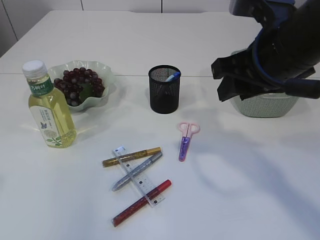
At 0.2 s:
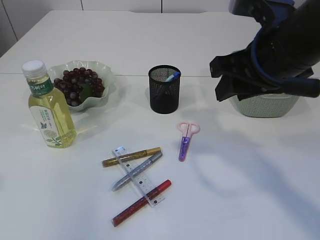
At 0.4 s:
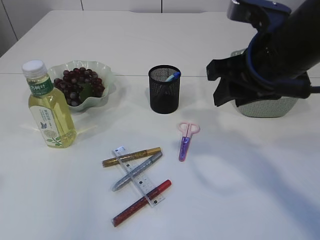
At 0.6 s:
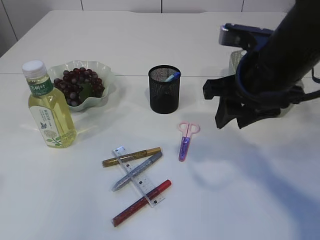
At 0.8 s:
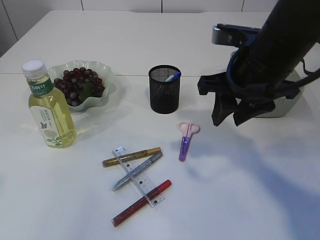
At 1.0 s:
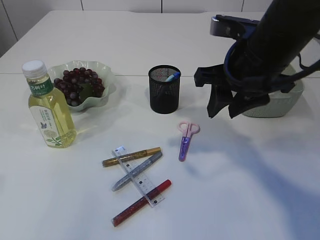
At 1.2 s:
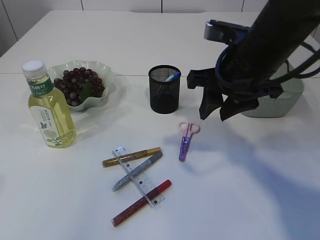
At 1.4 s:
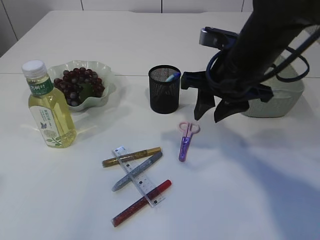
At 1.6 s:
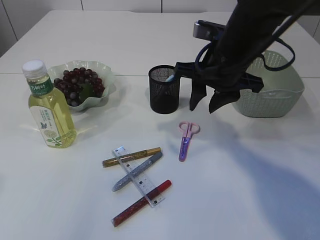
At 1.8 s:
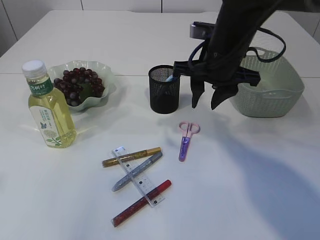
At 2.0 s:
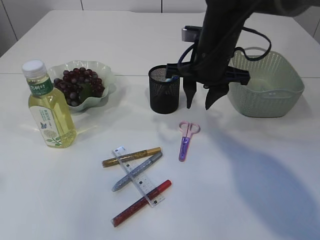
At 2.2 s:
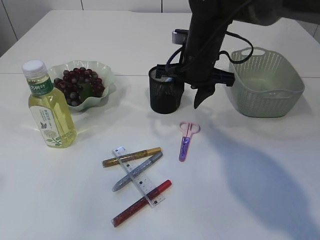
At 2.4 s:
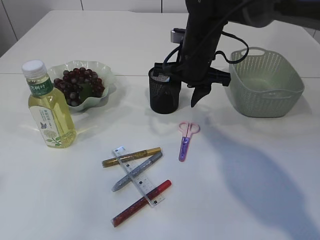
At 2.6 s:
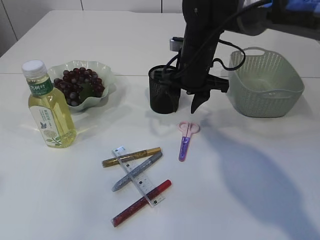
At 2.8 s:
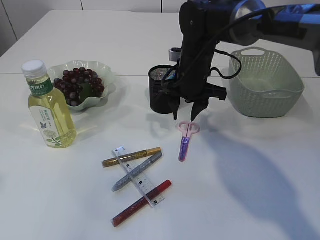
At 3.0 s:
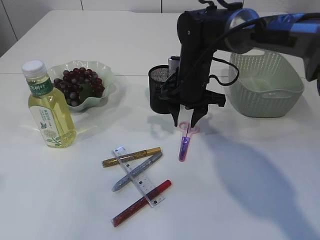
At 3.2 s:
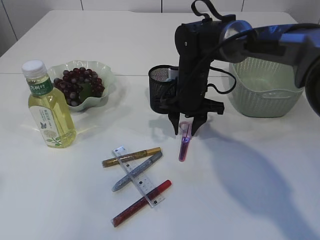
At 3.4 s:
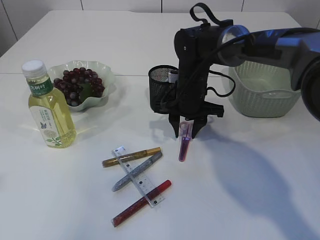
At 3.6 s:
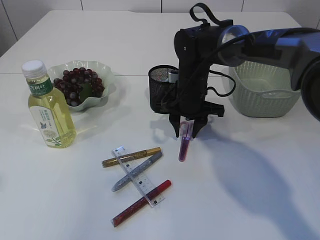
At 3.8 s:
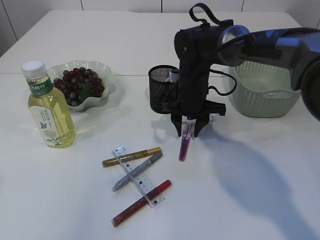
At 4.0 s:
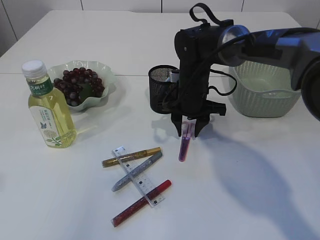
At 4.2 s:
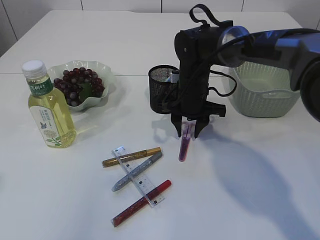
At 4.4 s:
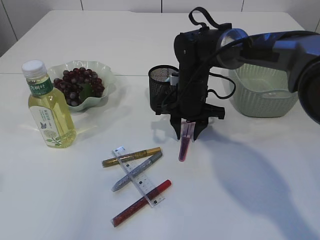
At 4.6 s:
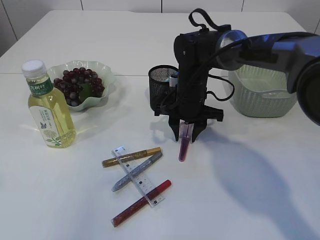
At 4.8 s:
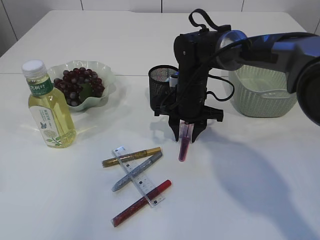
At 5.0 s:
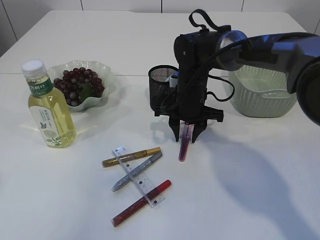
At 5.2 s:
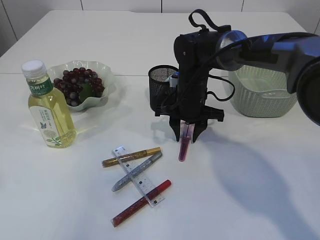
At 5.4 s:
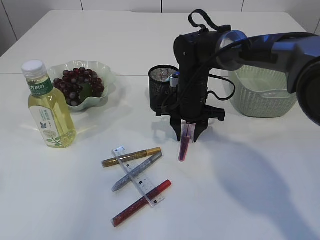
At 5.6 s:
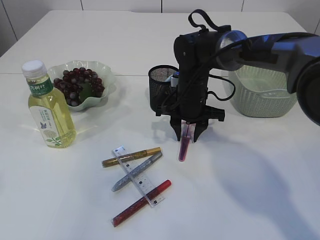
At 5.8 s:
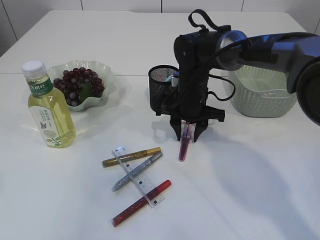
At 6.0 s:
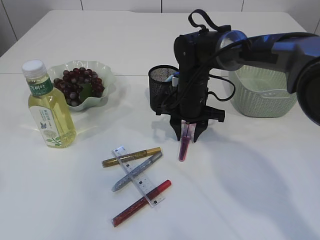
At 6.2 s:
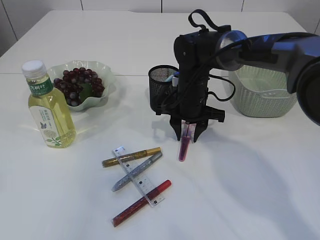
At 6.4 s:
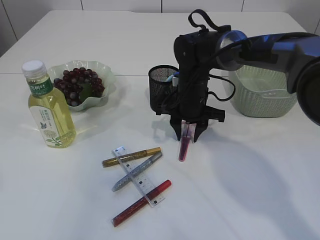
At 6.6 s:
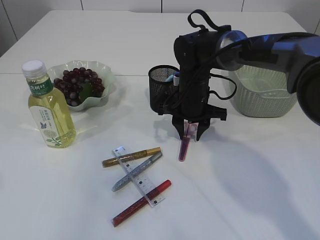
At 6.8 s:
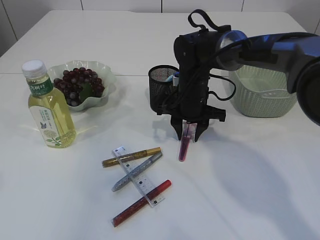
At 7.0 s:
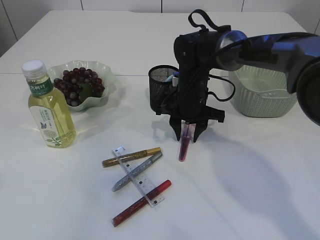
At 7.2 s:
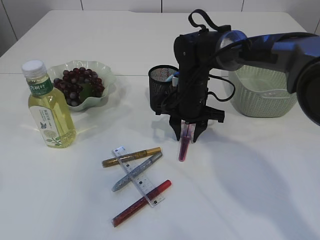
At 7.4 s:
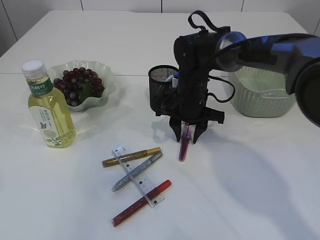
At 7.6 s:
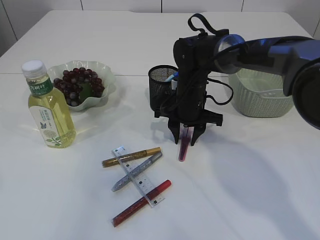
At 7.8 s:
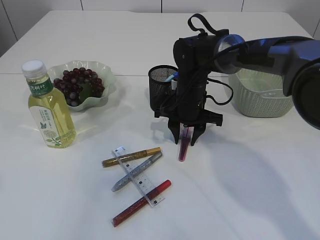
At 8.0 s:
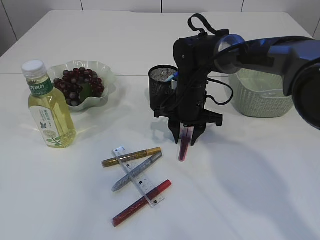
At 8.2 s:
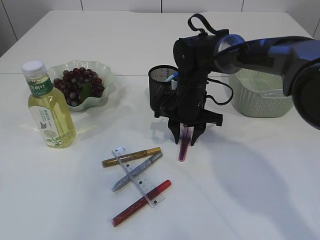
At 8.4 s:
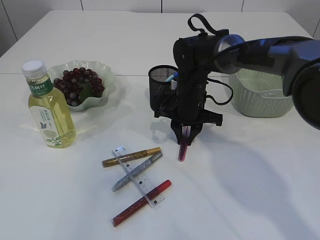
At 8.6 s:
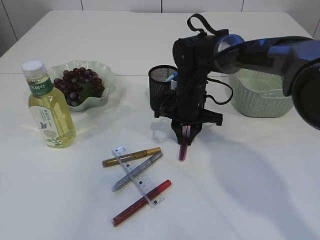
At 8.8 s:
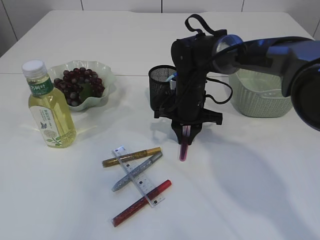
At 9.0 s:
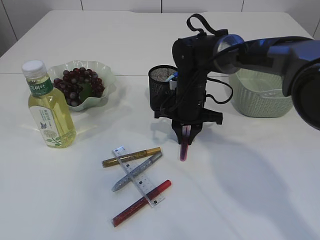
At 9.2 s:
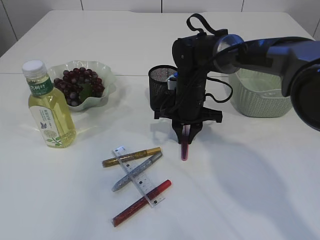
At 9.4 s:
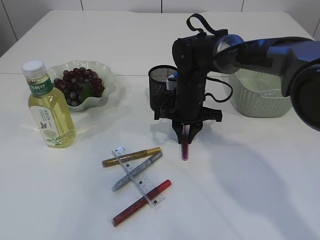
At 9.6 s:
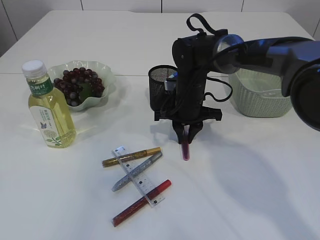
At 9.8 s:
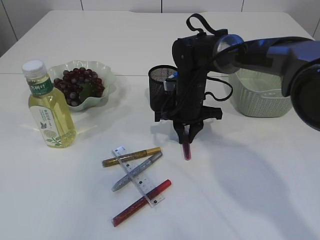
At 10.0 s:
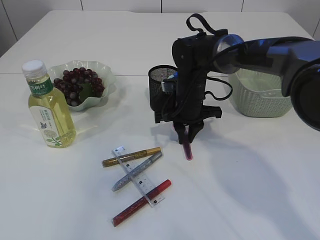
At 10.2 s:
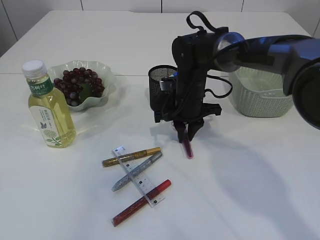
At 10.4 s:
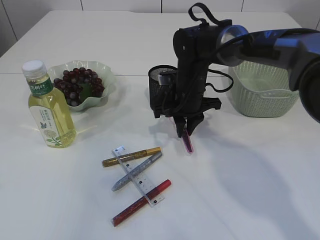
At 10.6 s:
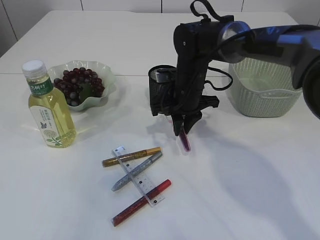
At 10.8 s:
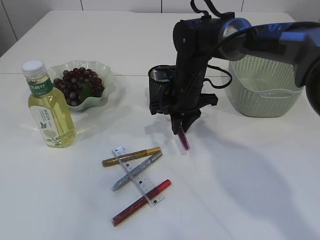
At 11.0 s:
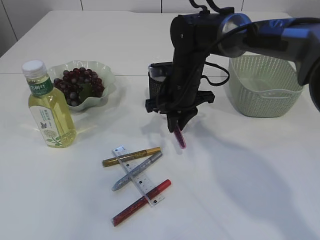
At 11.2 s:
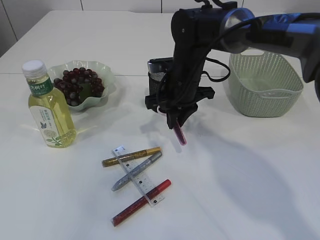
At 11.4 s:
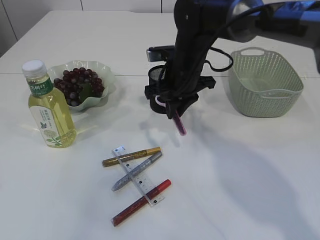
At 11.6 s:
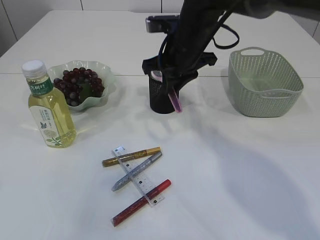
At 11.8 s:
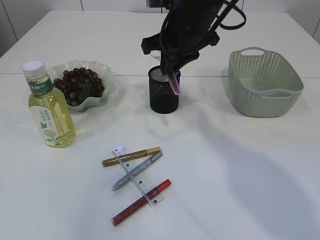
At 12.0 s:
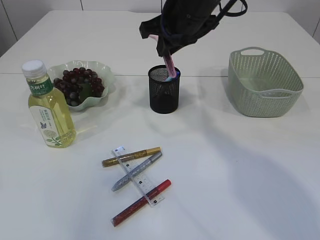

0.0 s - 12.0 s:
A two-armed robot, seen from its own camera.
Step, 0.0 s - 11.4 s: pick up the pink scissors.
0.0 s - 1.6 s: The right gripper is displaced forward by roughly 5 cm.
1.6 s - 3.0 s: The right gripper goes some 10 cm downward and forward.
3.0 s - 4.4 s: The grippers stay close to where they were, moving slightly.
4.4 s - 6.0 s: Neither gripper changes place.
6.0 s - 9.0 s: Both grippers stay about where they are.
10.4 s - 12.0 s: The right gripper shifts roughly 15 cm upward.

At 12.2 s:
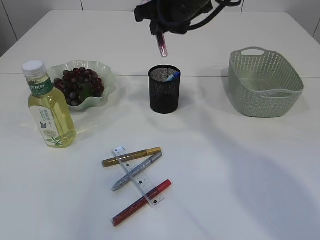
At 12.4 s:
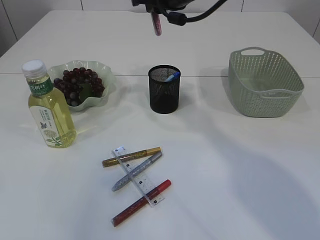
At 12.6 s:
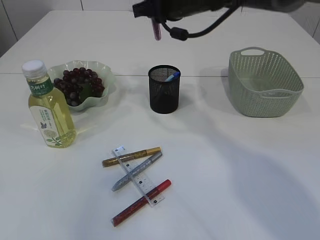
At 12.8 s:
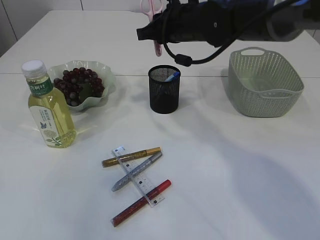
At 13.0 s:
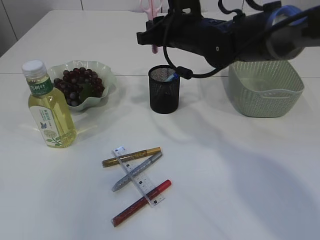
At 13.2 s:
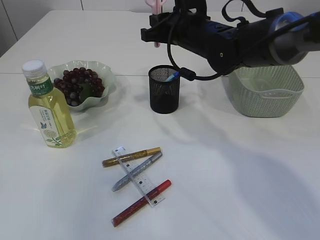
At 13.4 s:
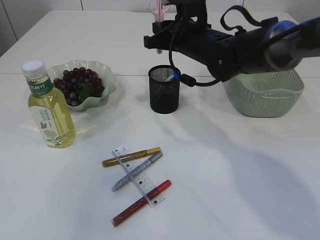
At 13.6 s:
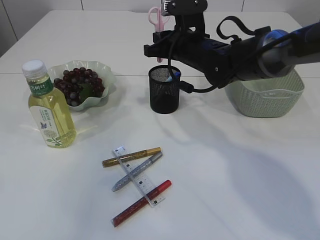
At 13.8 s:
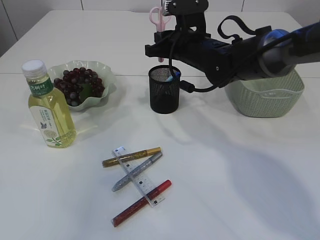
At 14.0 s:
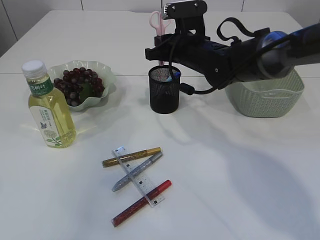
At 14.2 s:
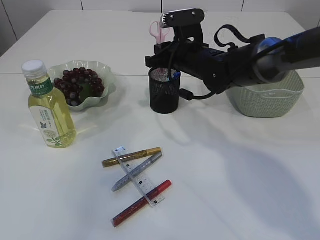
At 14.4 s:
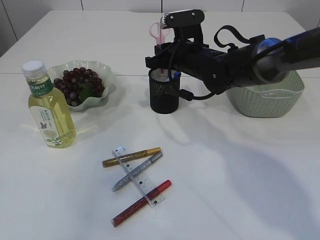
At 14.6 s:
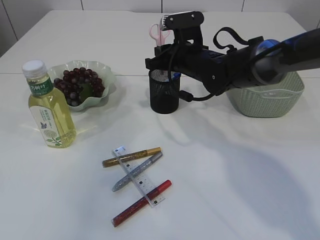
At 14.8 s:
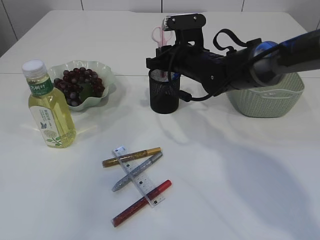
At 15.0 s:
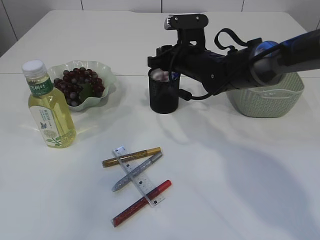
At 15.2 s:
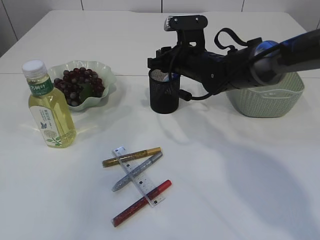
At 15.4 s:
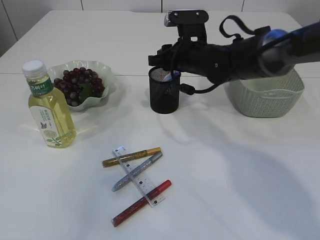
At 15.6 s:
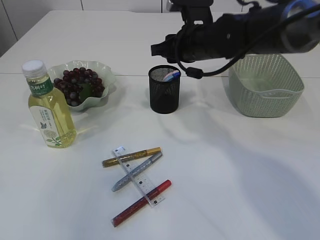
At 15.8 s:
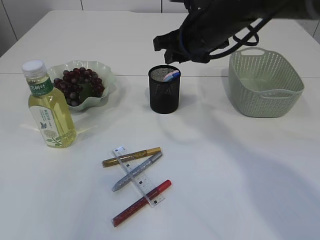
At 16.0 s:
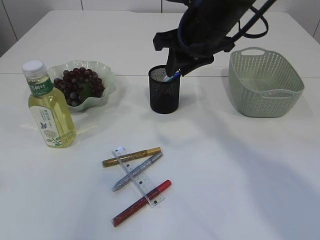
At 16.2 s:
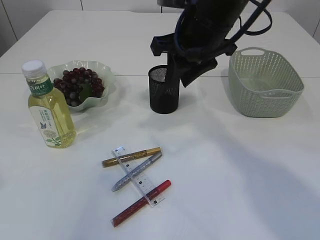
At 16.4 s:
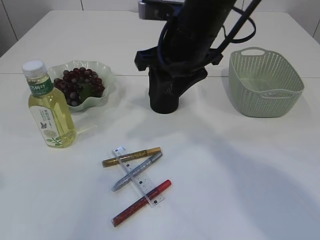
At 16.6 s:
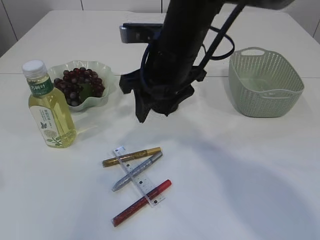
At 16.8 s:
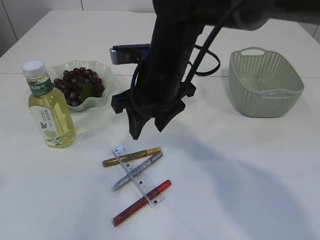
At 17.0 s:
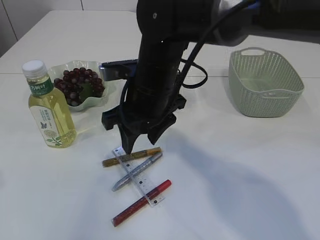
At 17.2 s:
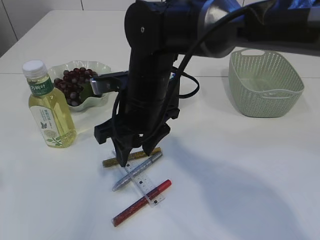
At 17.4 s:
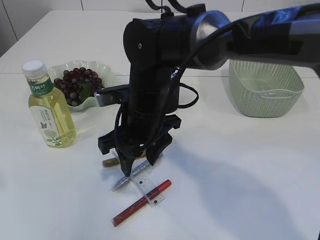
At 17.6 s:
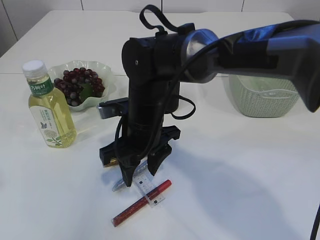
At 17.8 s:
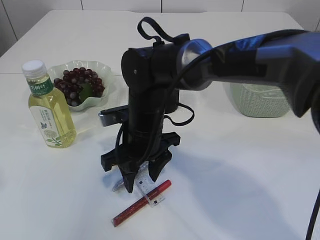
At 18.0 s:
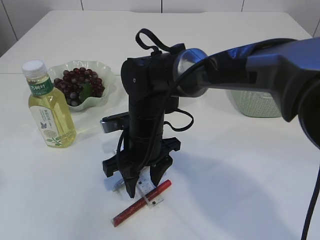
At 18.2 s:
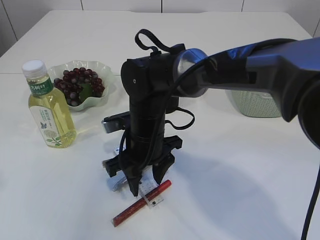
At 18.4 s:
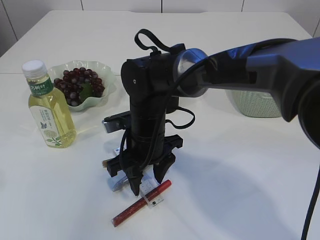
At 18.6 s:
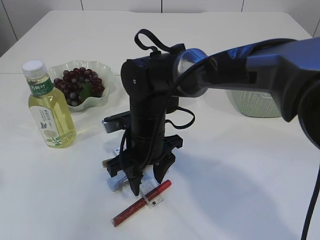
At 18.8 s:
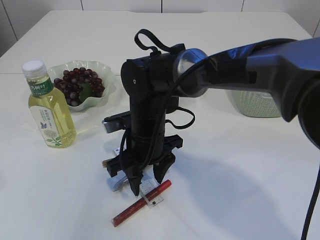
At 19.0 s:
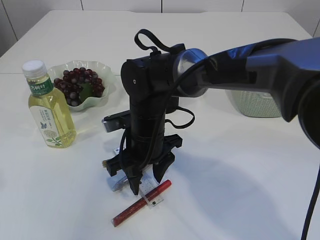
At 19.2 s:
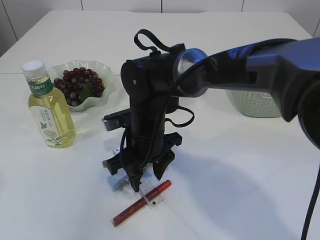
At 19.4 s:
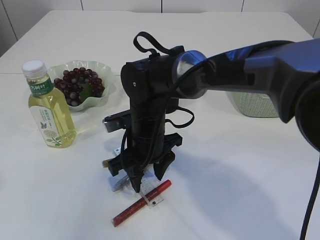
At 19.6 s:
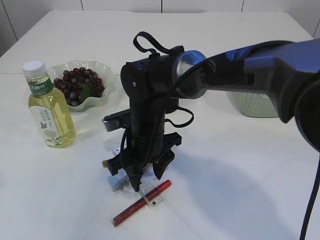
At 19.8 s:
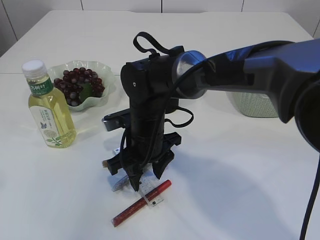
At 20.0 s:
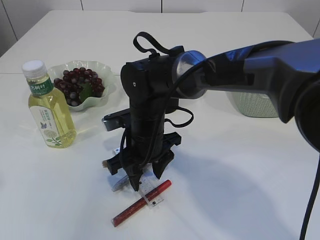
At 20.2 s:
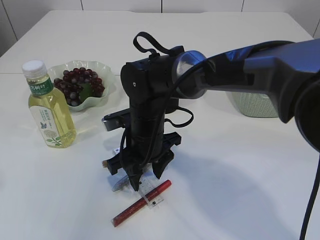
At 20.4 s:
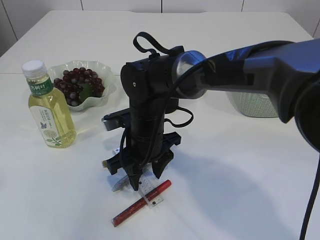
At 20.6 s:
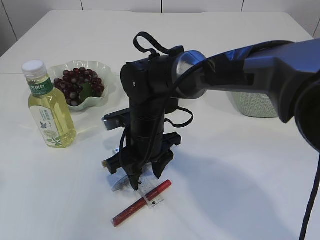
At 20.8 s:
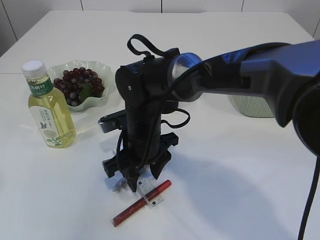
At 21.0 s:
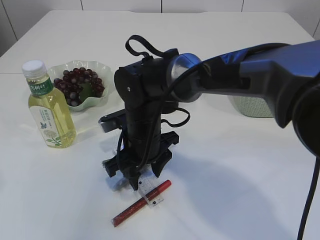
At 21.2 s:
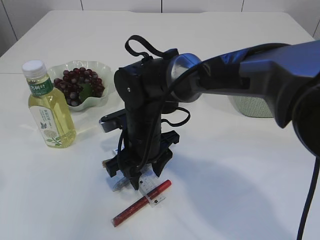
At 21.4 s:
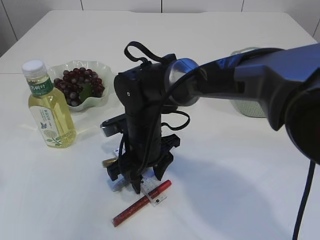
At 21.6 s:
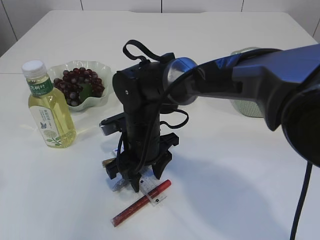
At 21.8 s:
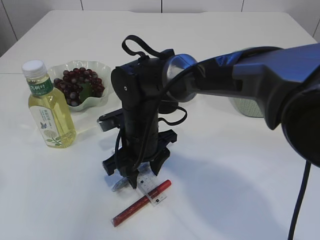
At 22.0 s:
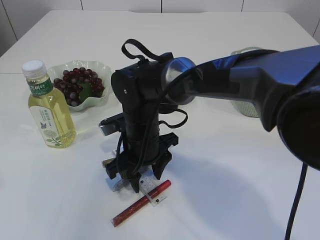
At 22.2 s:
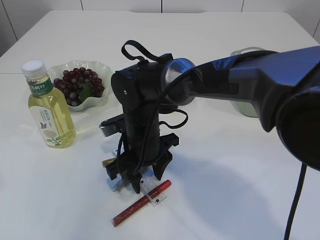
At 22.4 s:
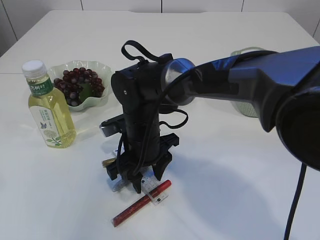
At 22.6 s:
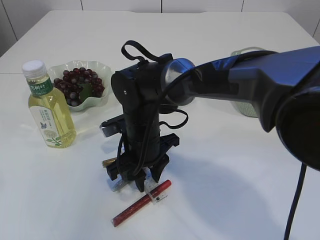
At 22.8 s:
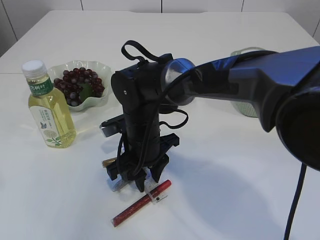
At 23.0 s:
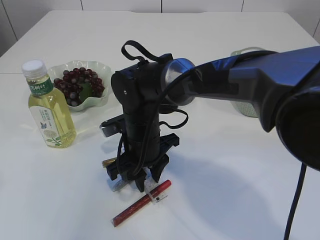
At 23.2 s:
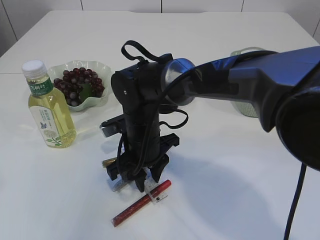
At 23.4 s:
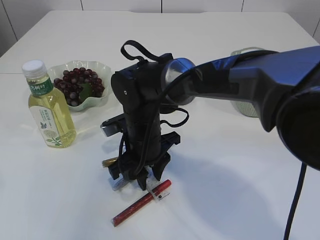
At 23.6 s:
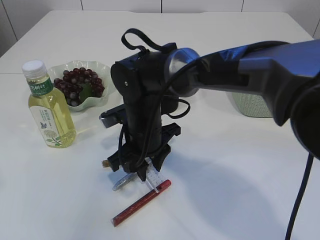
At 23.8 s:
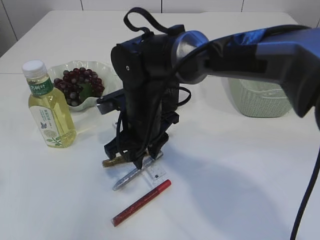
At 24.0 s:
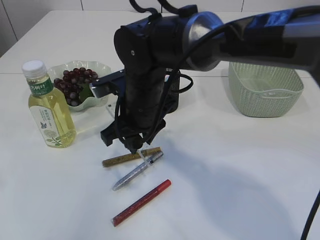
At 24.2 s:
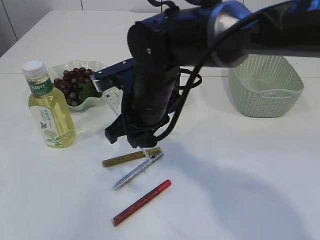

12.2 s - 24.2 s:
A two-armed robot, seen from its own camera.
Step, 12.2 s - 15.8 s: Place the pink scissors into the pen holder.
Step, 16.0 s - 24.0 s: pick up the ruler.
12.2 s - 13.8 s: The right gripper shifts some 10 cm downward.
13.8 s - 15.2 s: The grippers move only a little.
15.2 s - 16.6 s: The right gripper moves backward and upward, some 15 cm.
16.6 s - 18.2 s: The right gripper is displaced downward by roughly 15 cm.
18.2 s - 19.8 s: The two grippers keep their place.
19.8 s - 22.6 s: Both grippers stay put.
22.6 s - 24.2 s: The right gripper goes roughly 10 cm upward.
